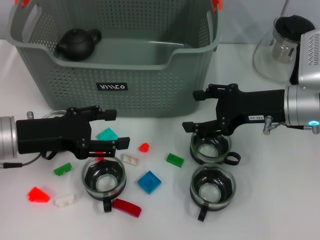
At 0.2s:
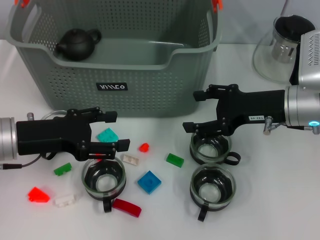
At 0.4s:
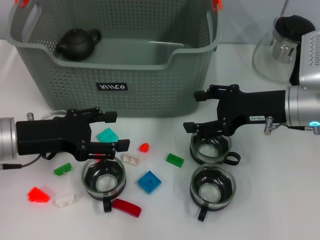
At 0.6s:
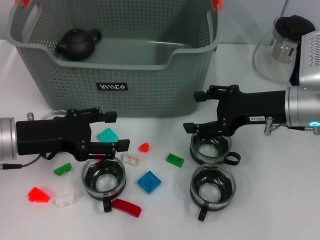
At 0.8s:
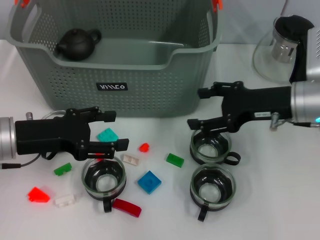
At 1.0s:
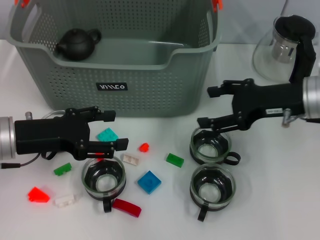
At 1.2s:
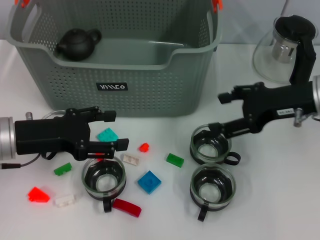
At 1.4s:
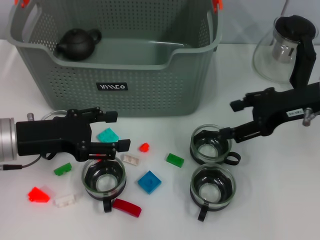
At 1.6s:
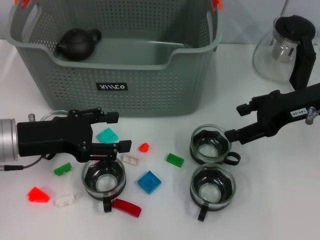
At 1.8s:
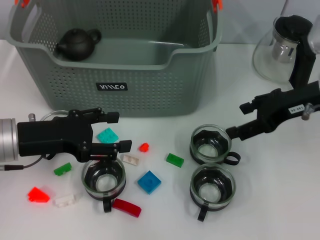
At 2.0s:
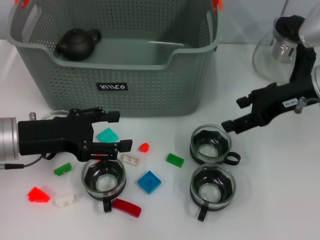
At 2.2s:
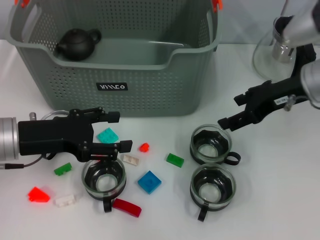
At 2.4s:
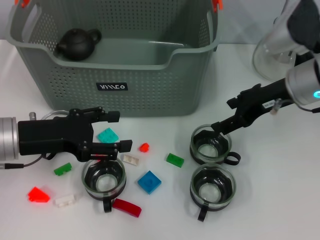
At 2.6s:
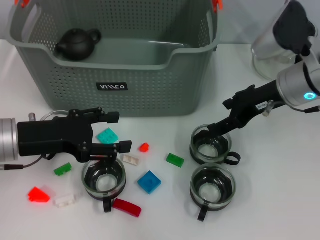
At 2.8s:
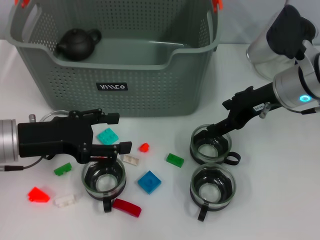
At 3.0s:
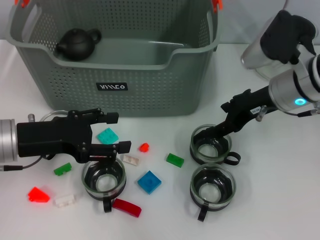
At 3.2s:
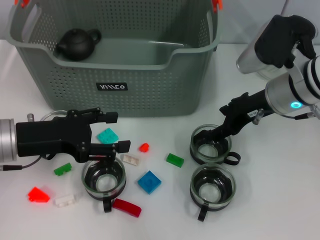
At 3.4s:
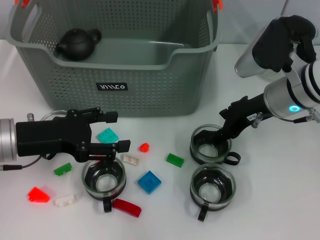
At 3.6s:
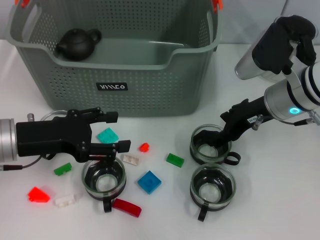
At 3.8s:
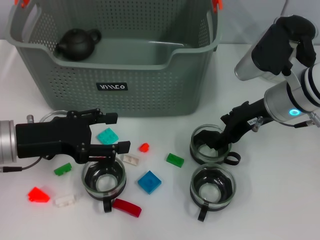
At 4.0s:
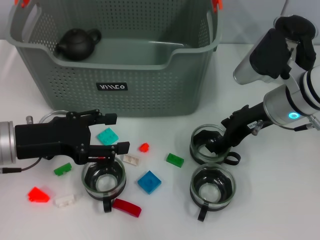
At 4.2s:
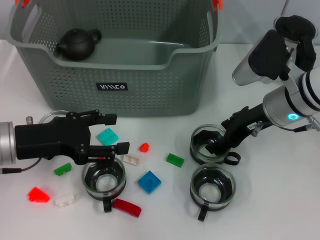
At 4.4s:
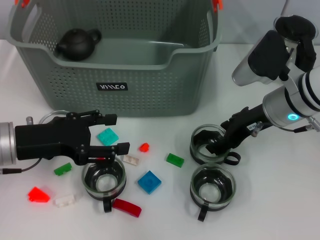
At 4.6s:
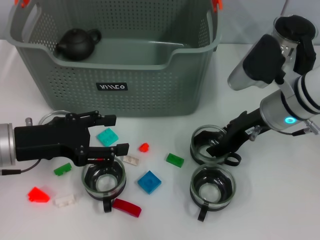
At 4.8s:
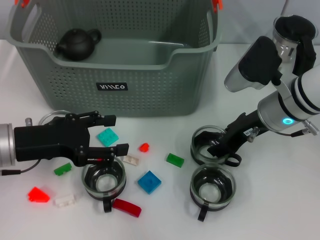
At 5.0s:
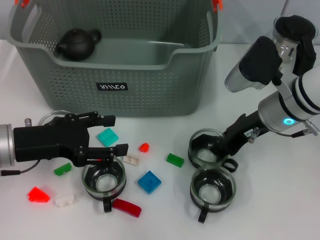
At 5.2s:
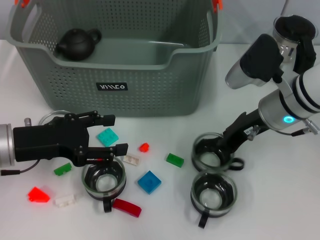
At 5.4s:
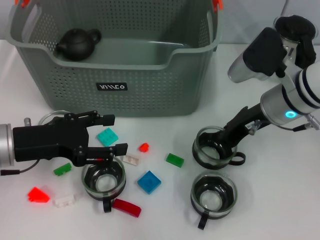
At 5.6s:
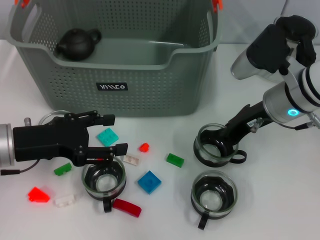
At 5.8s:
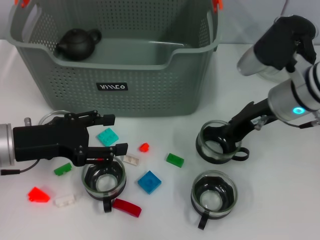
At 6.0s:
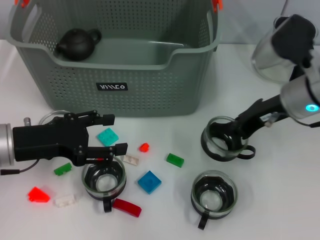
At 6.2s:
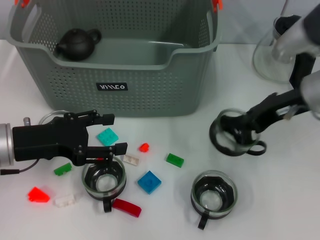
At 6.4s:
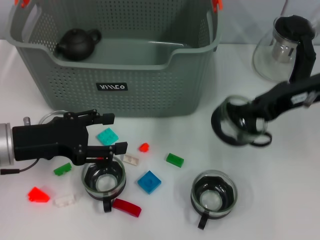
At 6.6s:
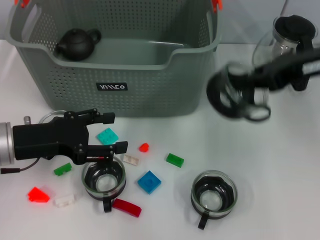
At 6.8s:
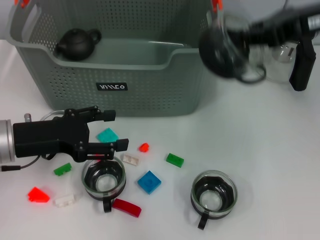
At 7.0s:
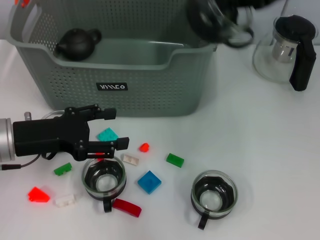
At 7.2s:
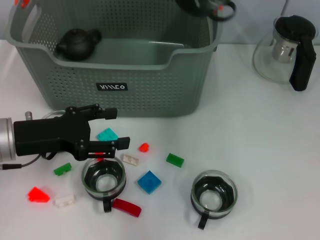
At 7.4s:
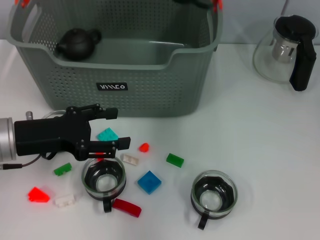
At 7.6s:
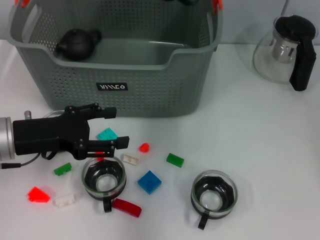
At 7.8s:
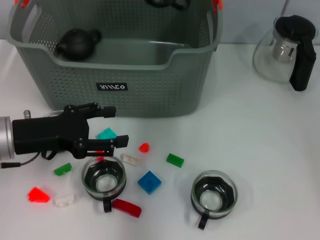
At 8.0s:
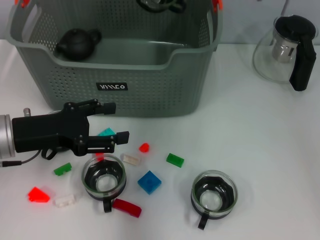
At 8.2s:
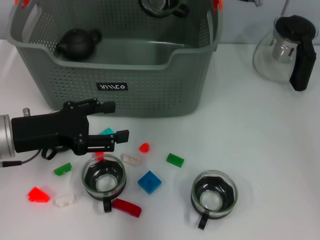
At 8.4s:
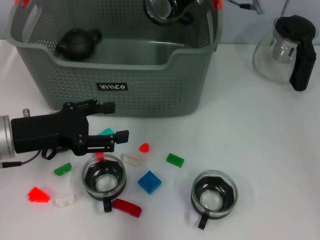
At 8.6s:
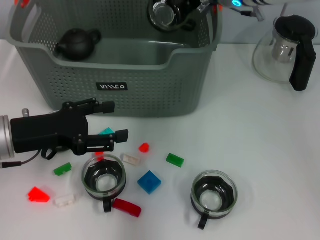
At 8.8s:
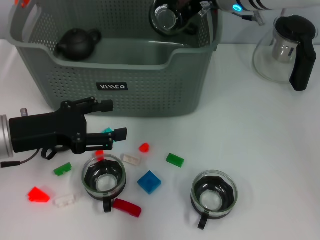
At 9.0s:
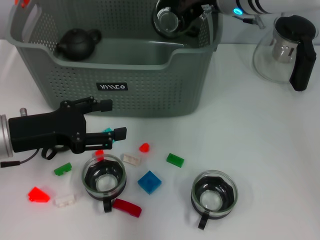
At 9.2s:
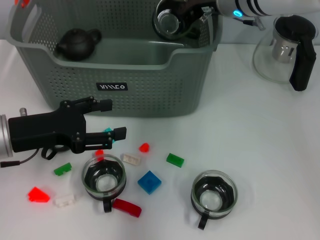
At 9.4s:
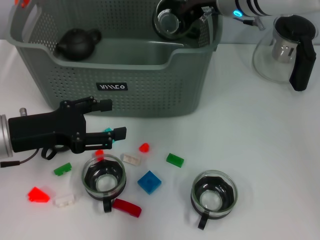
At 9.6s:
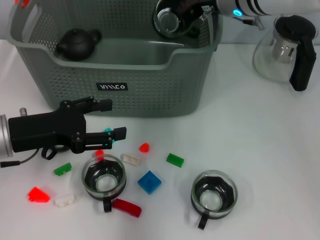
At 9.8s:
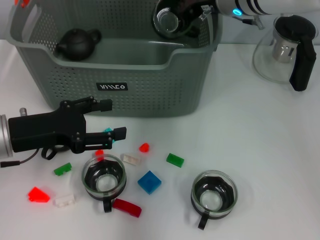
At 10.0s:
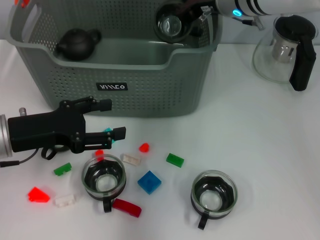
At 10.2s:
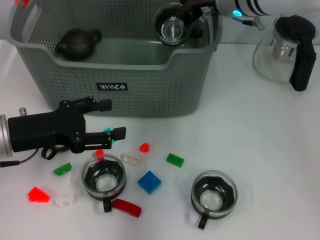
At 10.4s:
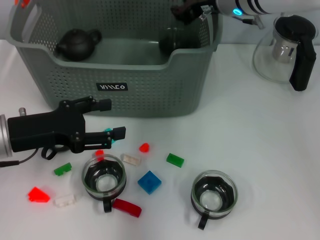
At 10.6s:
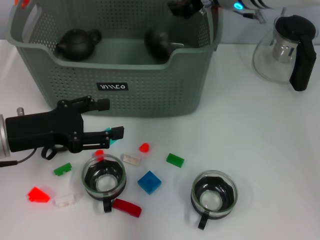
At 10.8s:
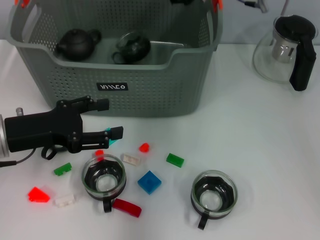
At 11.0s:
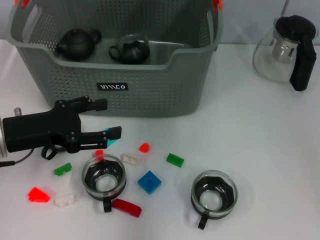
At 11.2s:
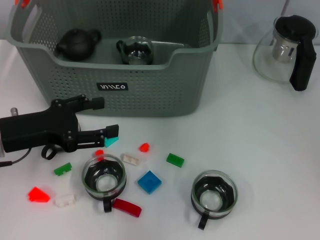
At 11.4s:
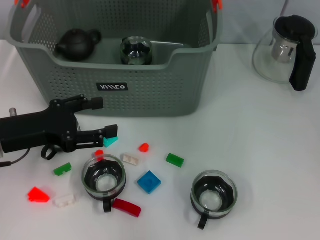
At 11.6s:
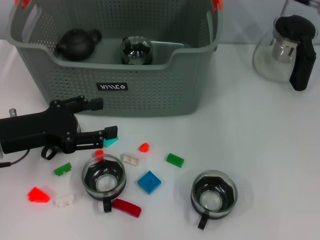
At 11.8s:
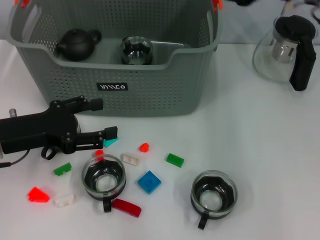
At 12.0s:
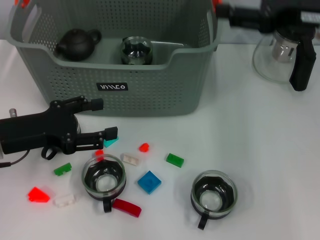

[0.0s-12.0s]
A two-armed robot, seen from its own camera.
Task of the whole recording: pick up the teacup on the table and place it into the storage bin, pick up the block on the table and place it into the storage bin.
Step, 0.0s to 5.0s: Grasp the cup with right gripper.
Step, 5.2s to 10.6s: Place the cup in the storage box with right gripper.
0.0s to 1.6s: The right gripper moves approximately 5 cm.
1.6s to 3.0s: The right gripper travels to the left by roughly 5 cm.
3.0s to 4.4s: The grippers stay close to where they were, moving slightly.
4.4s to 6.0s: The right gripper closes.
6.0s to 7.6s: The right gripper travels upward, forward and to the left by approximately 20 cm.
7.6s to 9.0s: The right gripper moves downward, some 10 cm.
9.0s to 10.4s: Neither gripper changes place.
10.4s to 12.0s: The right gripper heads backward, to the right and upward, covering approximately 20 cm, and opens.

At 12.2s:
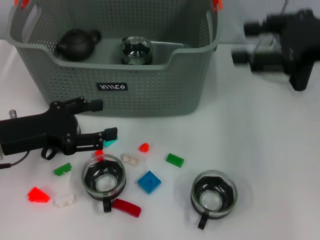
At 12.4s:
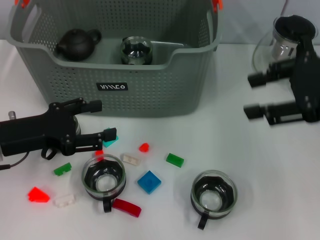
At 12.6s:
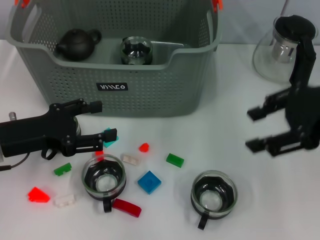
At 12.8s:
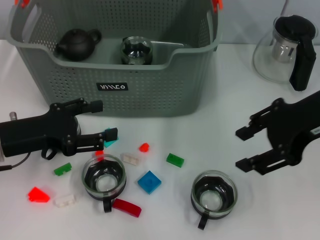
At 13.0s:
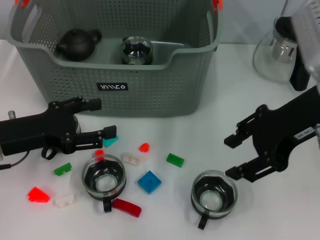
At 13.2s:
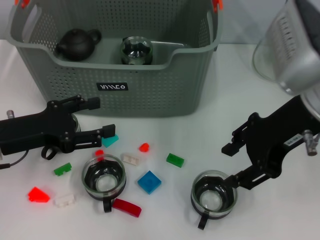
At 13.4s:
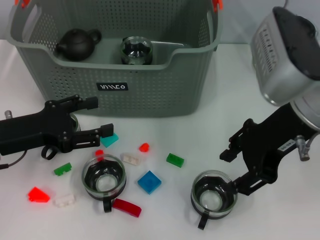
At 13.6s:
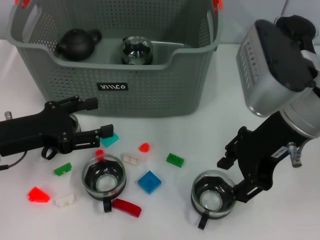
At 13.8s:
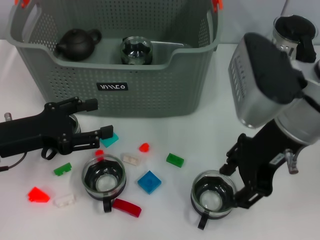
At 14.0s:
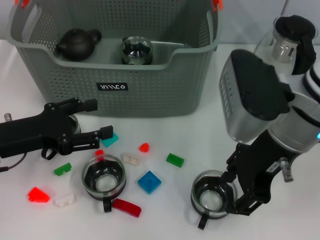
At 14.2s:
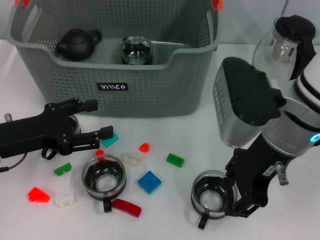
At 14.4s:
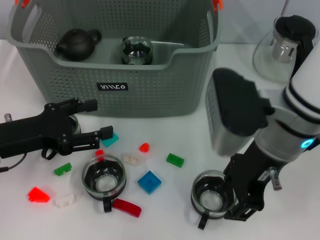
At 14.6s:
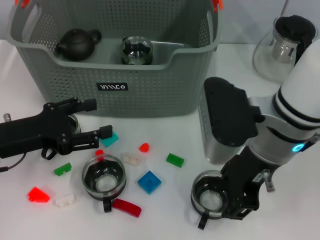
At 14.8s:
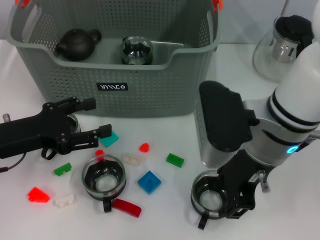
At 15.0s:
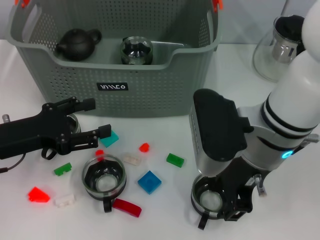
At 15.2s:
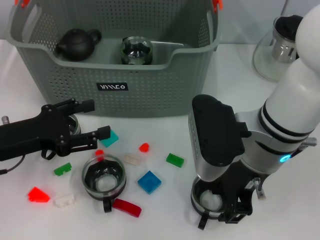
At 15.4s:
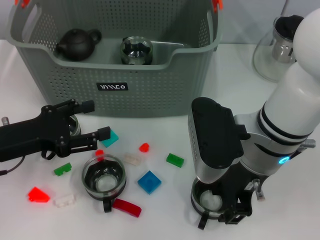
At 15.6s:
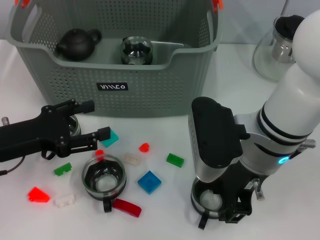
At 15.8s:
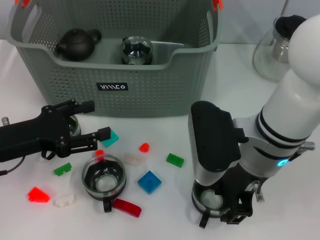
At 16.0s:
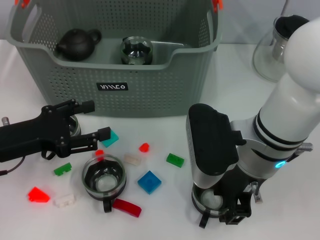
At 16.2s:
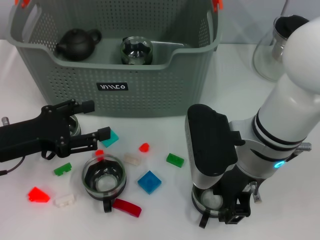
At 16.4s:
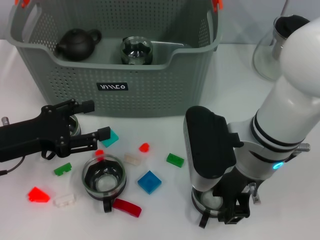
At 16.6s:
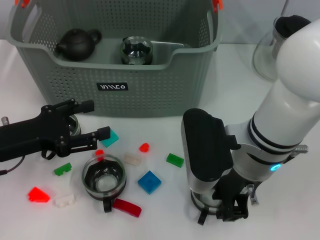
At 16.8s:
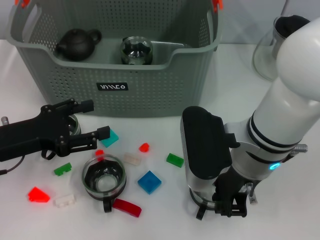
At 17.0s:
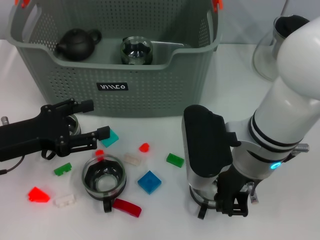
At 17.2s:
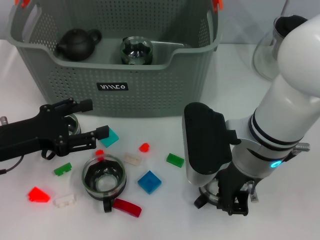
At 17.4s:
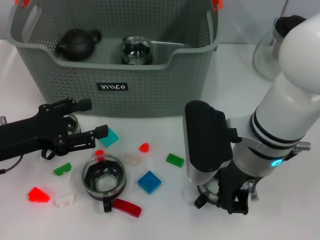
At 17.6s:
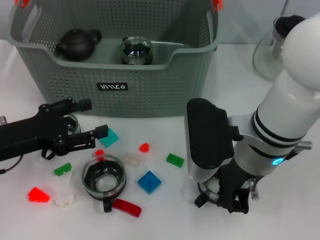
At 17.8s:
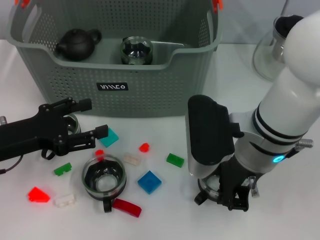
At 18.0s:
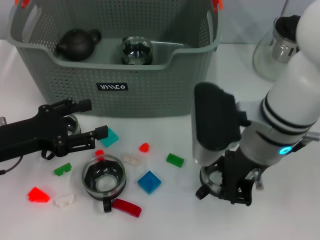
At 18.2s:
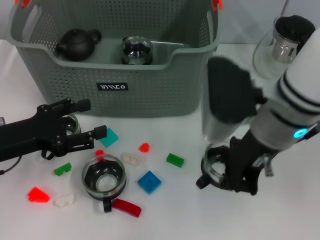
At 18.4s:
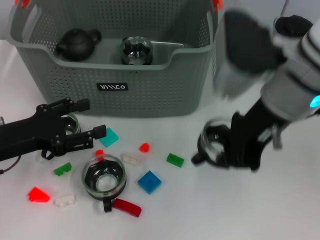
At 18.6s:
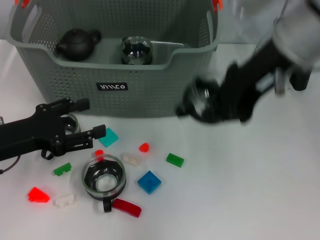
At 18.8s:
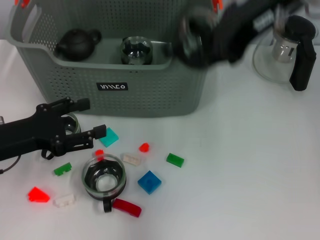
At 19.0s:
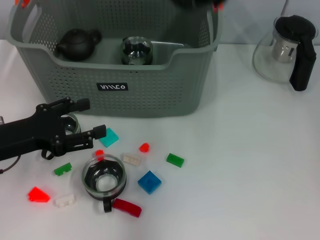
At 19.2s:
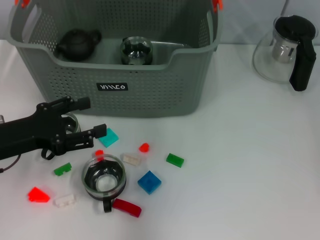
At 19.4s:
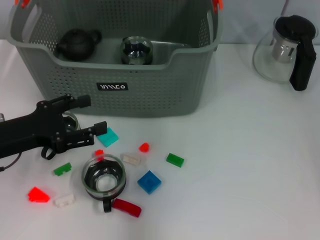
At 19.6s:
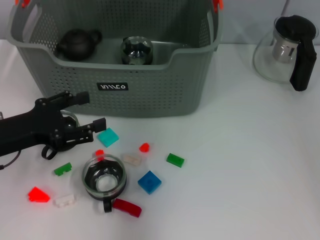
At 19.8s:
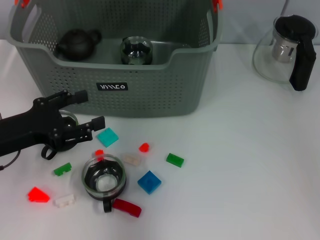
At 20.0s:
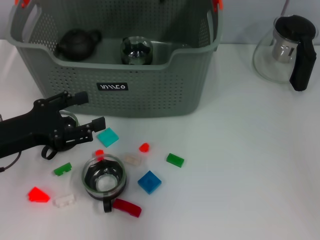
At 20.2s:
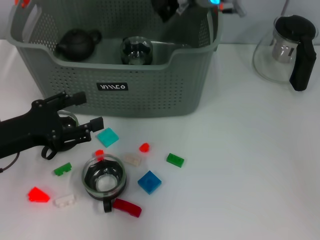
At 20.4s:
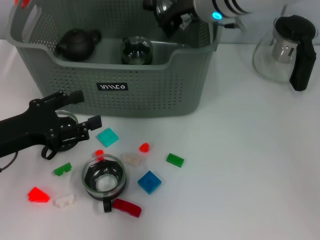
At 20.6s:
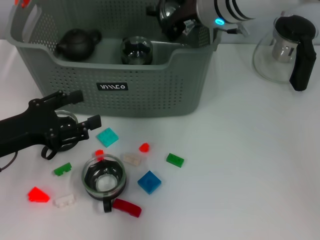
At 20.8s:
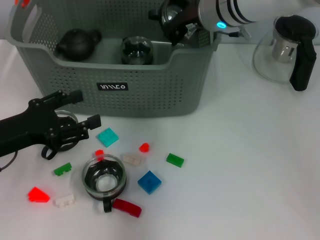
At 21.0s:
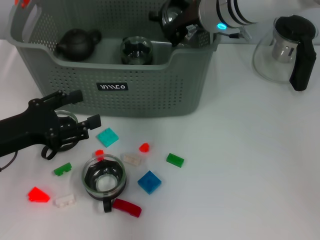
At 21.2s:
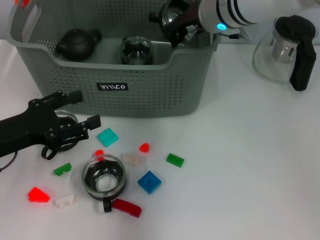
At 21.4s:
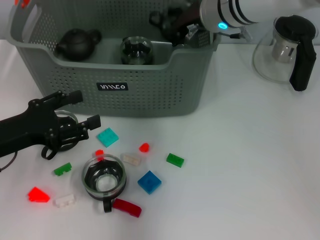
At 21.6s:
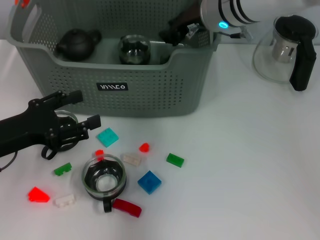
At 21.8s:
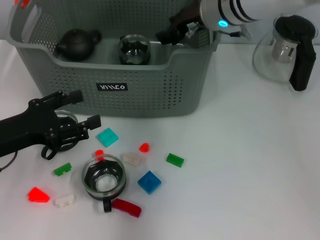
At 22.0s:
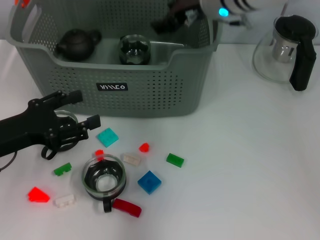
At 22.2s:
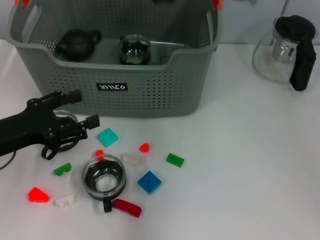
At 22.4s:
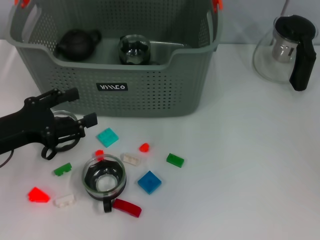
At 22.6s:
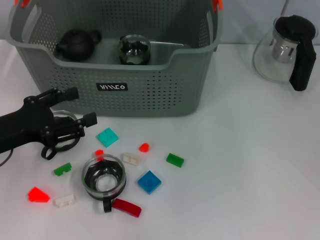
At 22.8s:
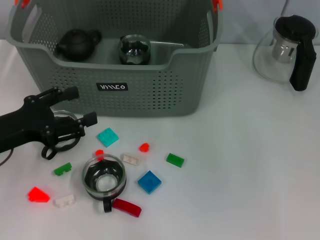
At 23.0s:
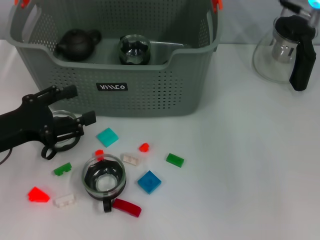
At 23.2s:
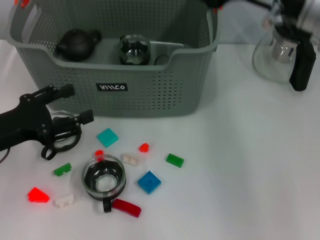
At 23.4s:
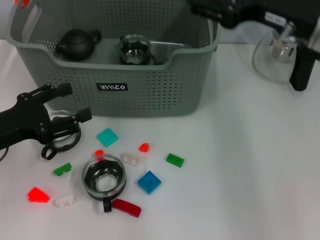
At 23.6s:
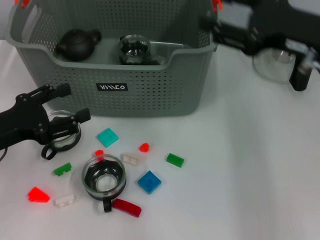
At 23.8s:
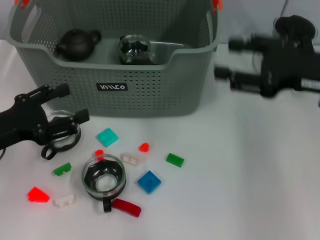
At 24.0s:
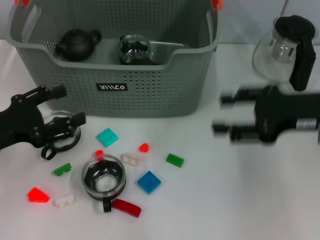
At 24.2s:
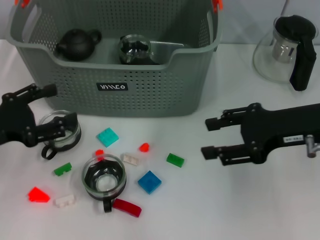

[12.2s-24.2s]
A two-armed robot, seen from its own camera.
Task of the whole recording: pick up the teacup on the table and place it into the storage bin, pick up the block on the table and place it into the storage bin.
Step, 12.2s to 16.8s: Grasp the cup with right gripper.
Step, 17.0s to 21.8s: Place the cup in the storage box with right gripper.
12.2s to 13.8s: The right gripper travels to the left by some 10 cm.
13.8s to 15.2s: The right gripper goes approximately 5 cm downward.
15.2s to 16.6s: The grippers make only small movements.
16.6s to 18.2s: The right gripper moves upward, about 5 cm, and closes.
18.2s to 19.8s: The right gripper is displaced forward and upward by approximately 20 cm.
19.8s to 21.2s: The right gripper is displaced downward by some 10 cm.
21.2s to 22.6s: The right gripper moves upward, some 10 cm, and opens.
22.6s to 24.2s: The right gripper travels downward, to the right and backward by approximately 20 cm.
